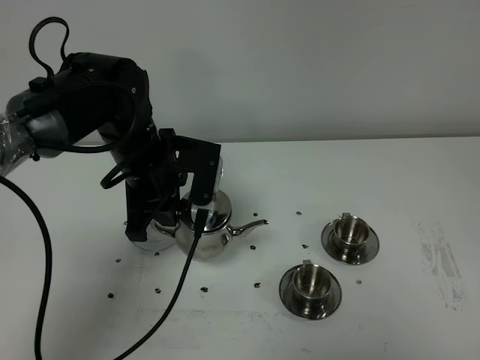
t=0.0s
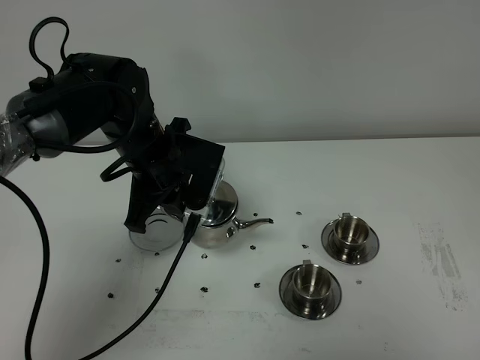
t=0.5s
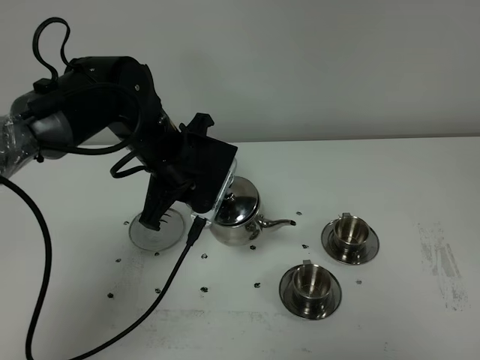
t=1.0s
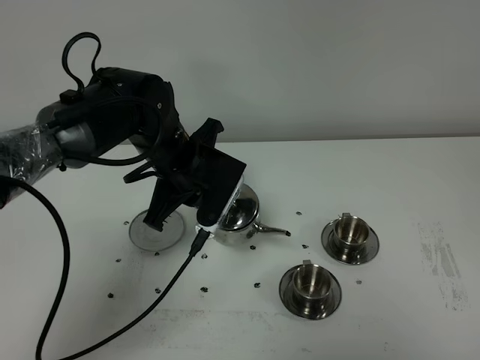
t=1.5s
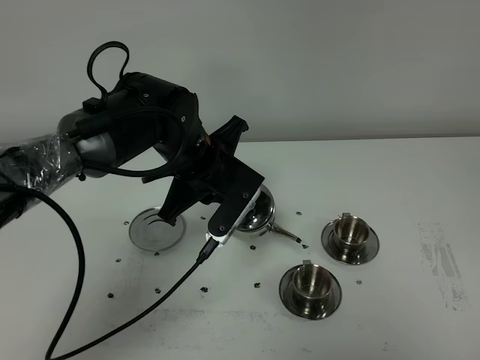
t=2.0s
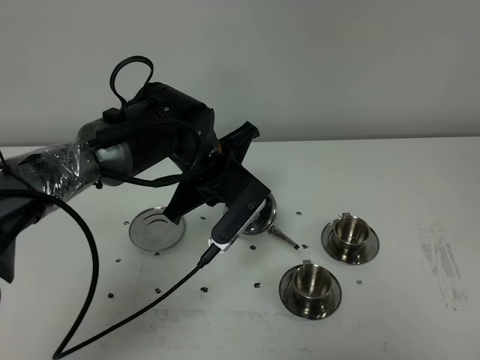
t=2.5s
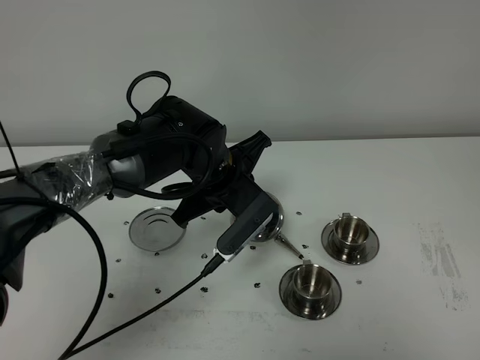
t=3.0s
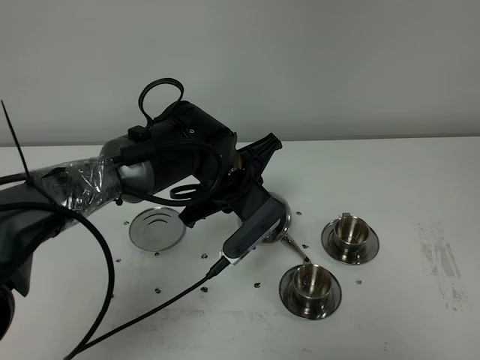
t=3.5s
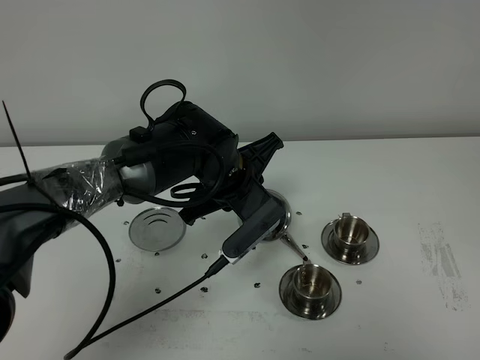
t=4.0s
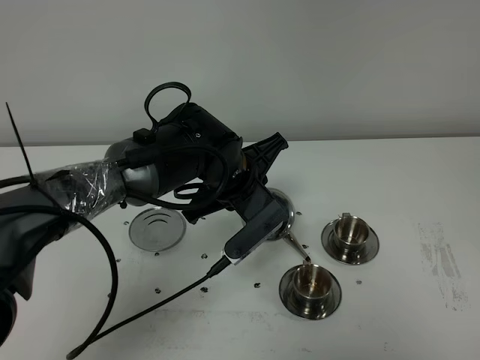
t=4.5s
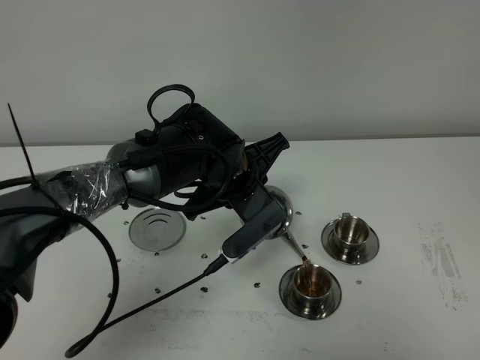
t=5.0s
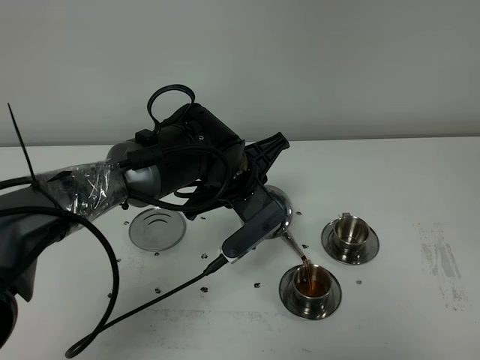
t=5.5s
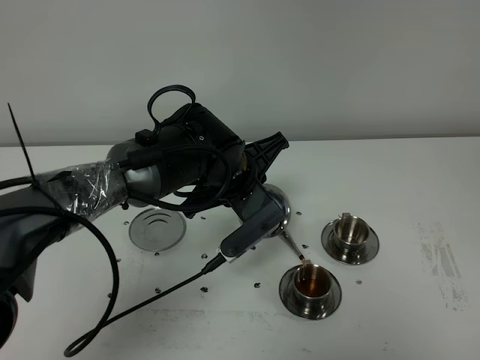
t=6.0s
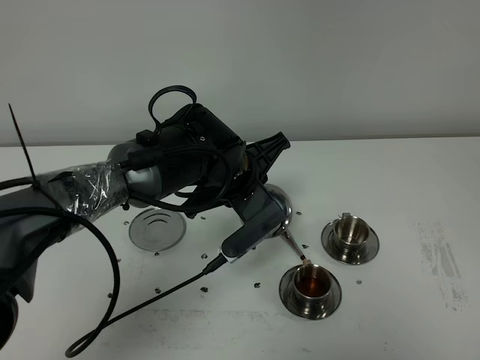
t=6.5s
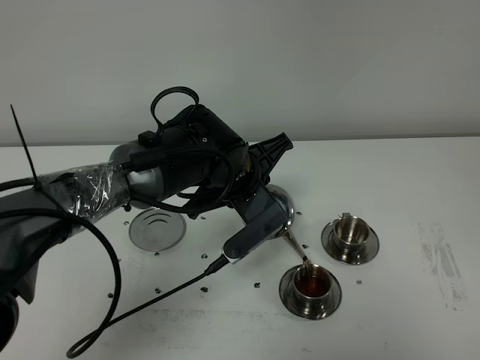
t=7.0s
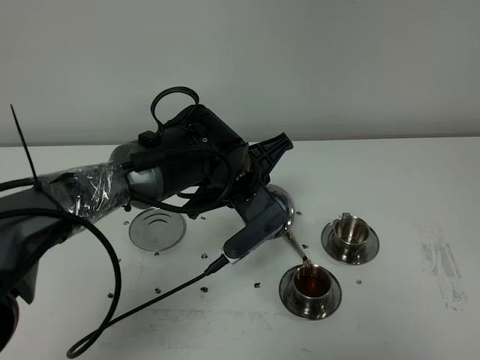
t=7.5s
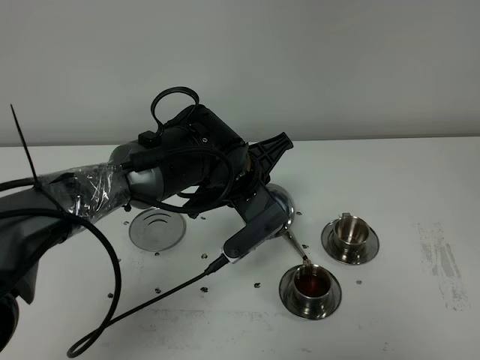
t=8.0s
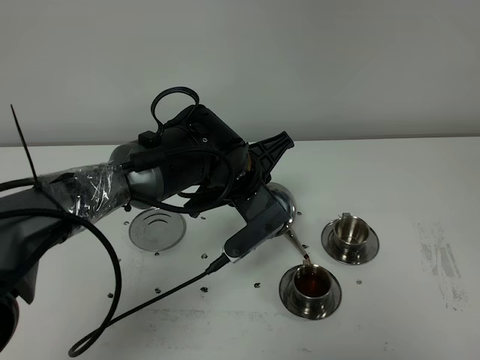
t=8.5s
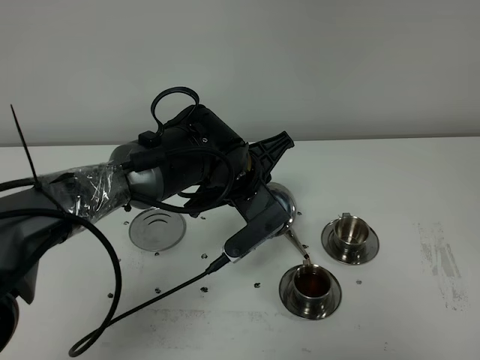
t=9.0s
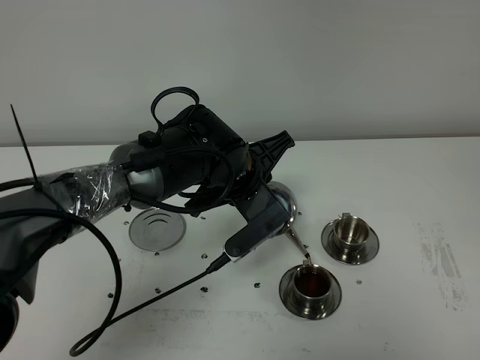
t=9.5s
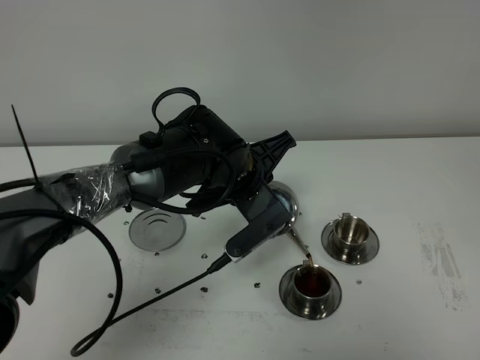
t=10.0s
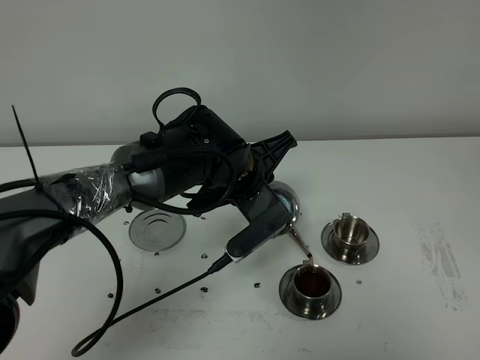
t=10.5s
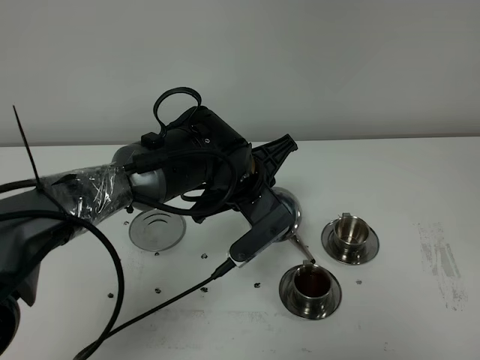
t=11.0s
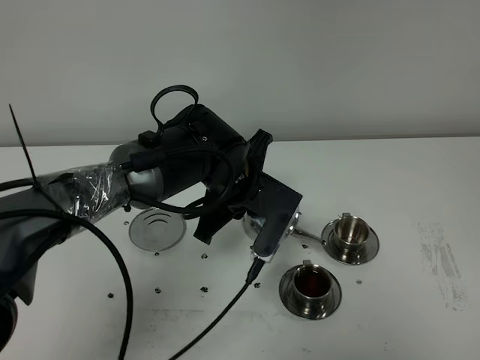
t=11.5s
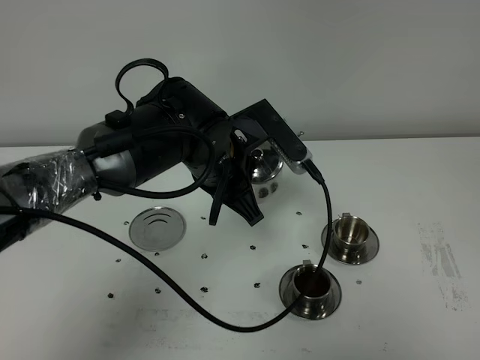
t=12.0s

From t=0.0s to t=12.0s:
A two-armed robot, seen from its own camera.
Task of the whole recording: grasp the stainless steel teapot and pour the tea into the two stainless steel teacups one by one, put the stainless steel teapot back in its original place.
Step, from t=0.0s to t=11.0s: Pour tea into the teacup with the left gripper.
From t=0.0s to t=2.0s: The left gripper shifts about 5 cm to the right.
From t=2.0s to t=4.0s: The grippers make only small movements.
From t=4.0s to t=6.0s: The grippers move only a little.
From t=6.0s to t=10.0s: Both grippers stay about where they are.

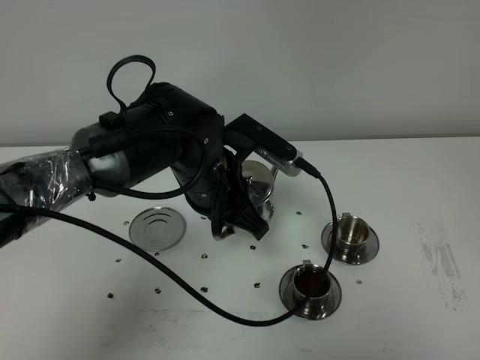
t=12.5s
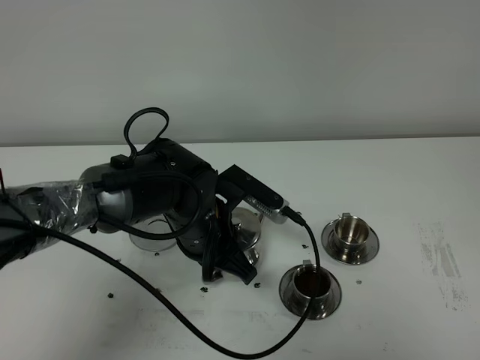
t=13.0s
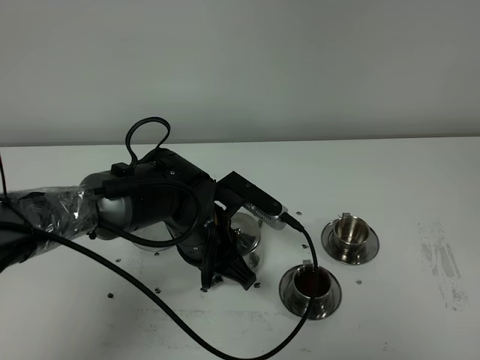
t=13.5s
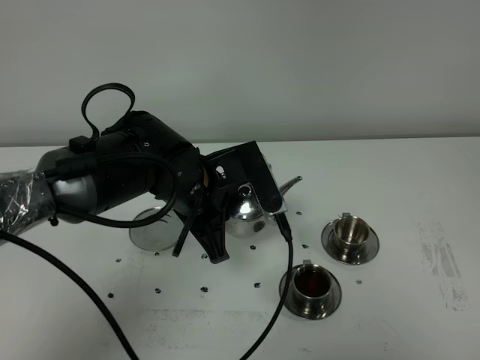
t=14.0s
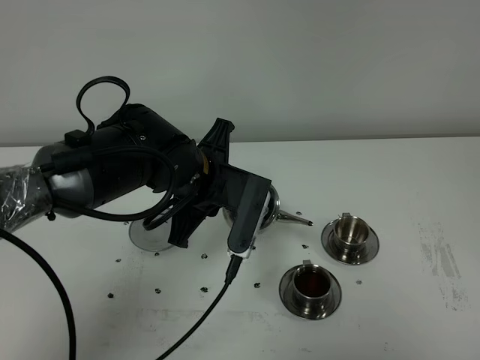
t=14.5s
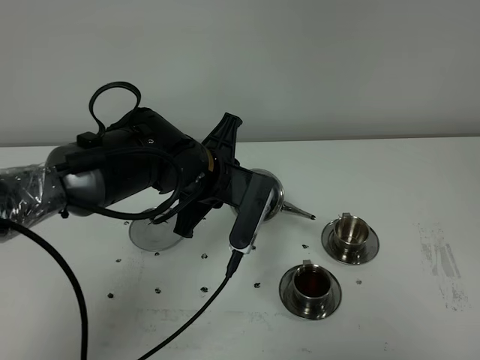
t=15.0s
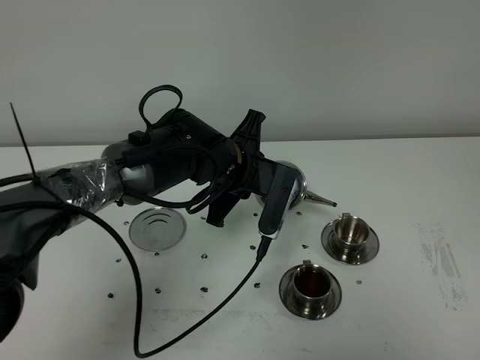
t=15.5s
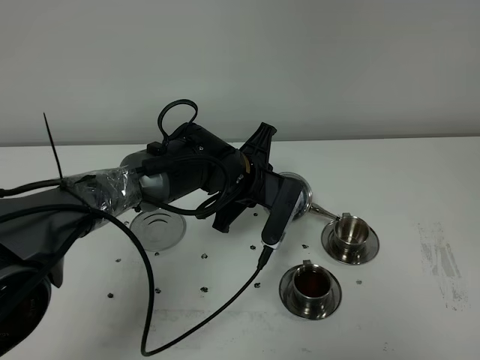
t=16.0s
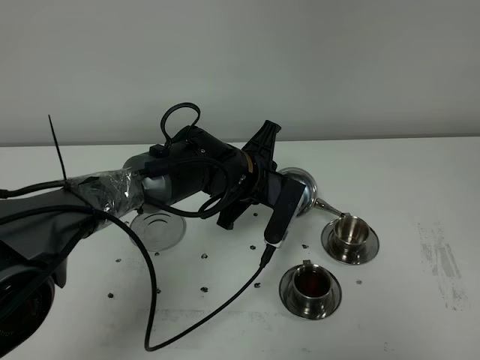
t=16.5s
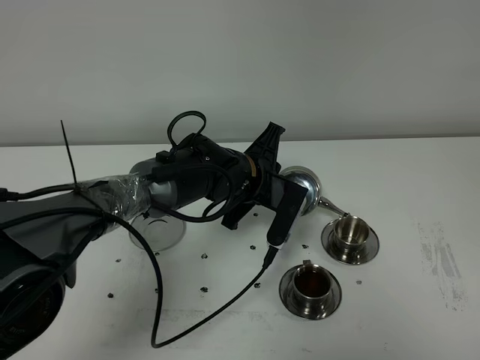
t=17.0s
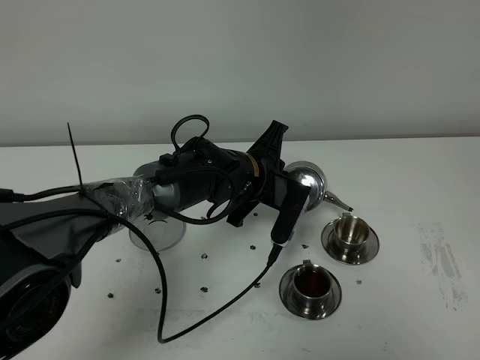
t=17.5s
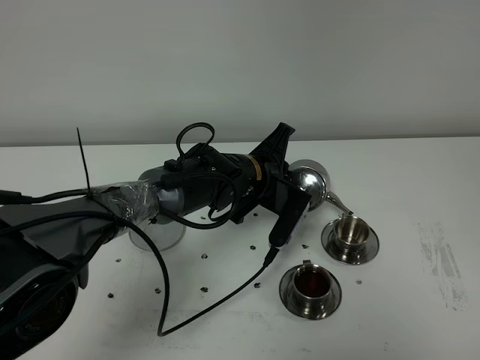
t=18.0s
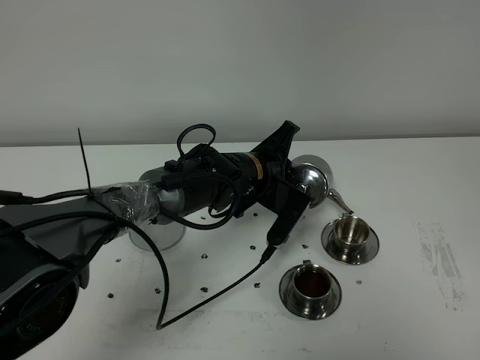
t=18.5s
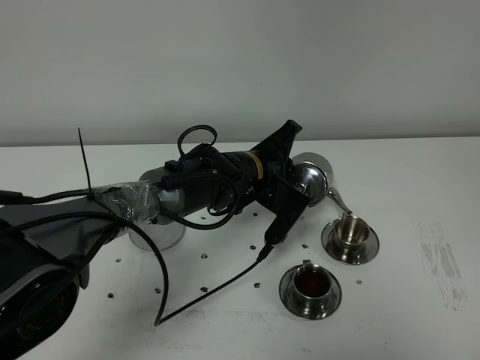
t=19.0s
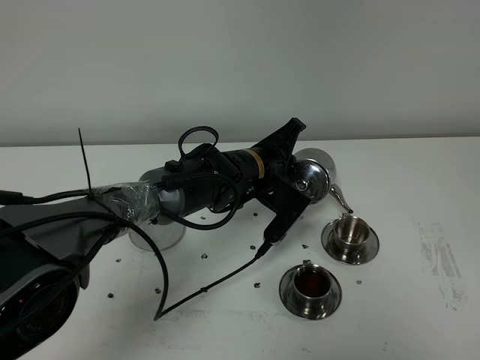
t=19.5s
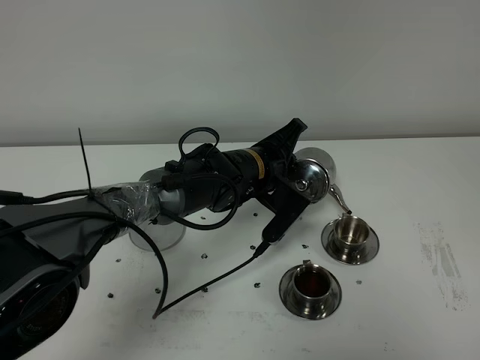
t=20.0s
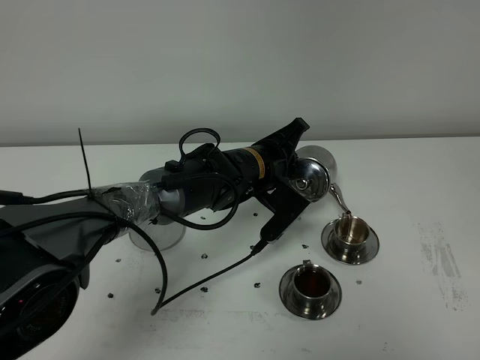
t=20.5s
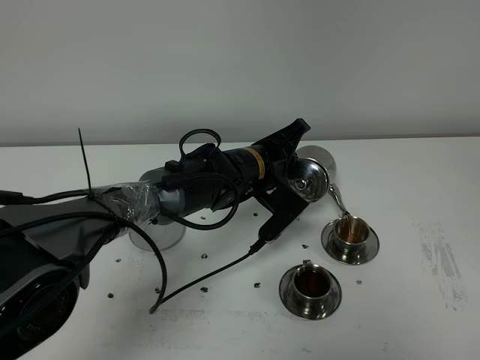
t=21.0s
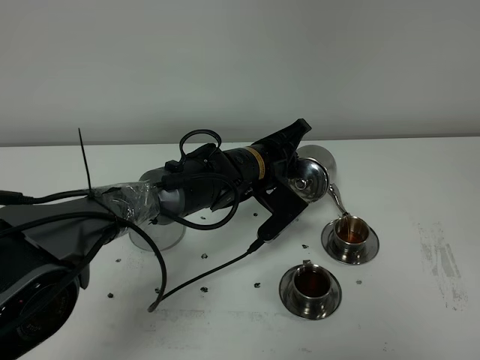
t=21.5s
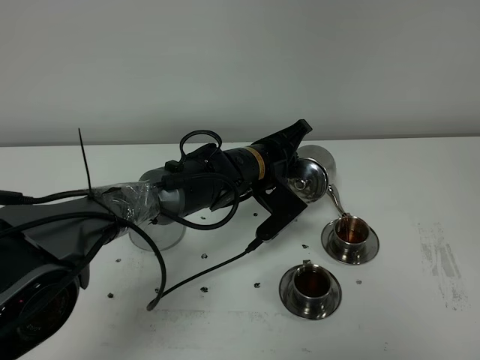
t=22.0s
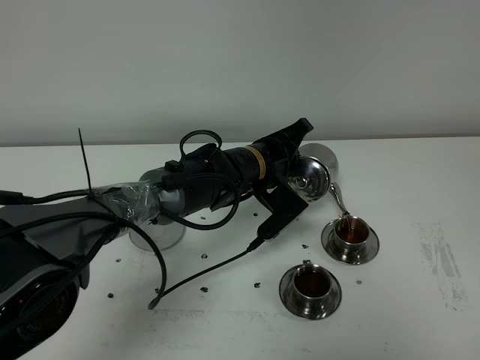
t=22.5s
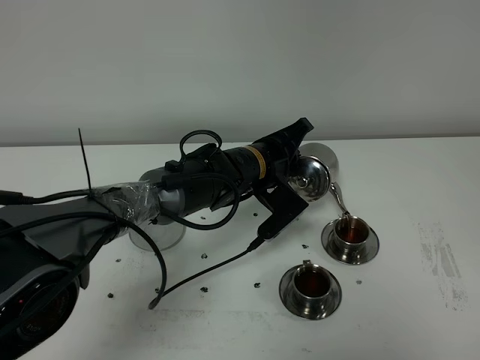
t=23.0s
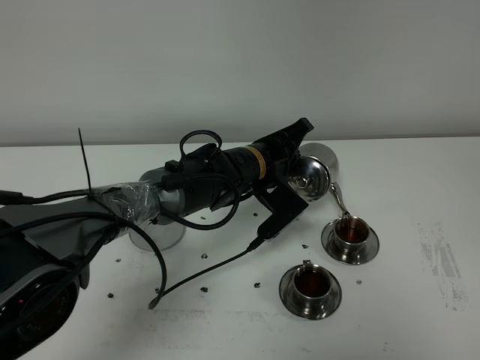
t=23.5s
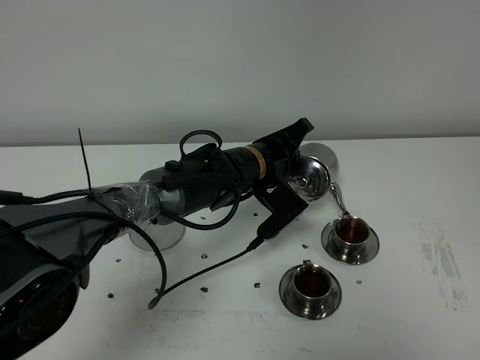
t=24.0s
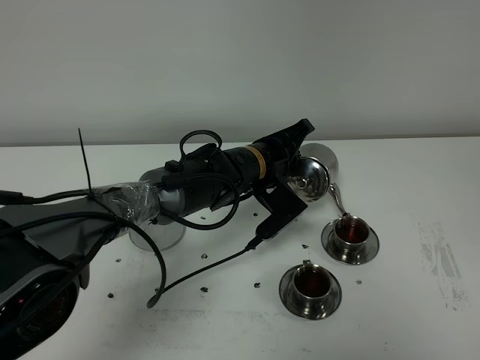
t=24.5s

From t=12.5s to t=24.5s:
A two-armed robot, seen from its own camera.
Task of the whole recording: grasp the stainless steel teapot and pour the tea into the two stainless steel teacups one by one, put the stainless steel teapot back in its original place.
From t=14.5s to t=16.5s: The left gripper heads forward and downward, covering some 10 cm.
From t=16.5s to t=18.5s: The grippers move only a little.
From t=18.5s to t=20.5s: The grippers make only small movements.
From t=20.5s to t=22.5s: Both grippers stay put.
From t=22.5s to t=24.5s: Neither gripper changes place.

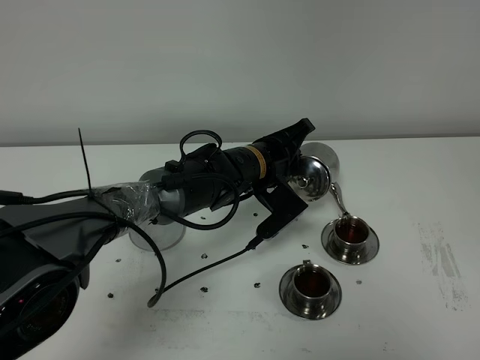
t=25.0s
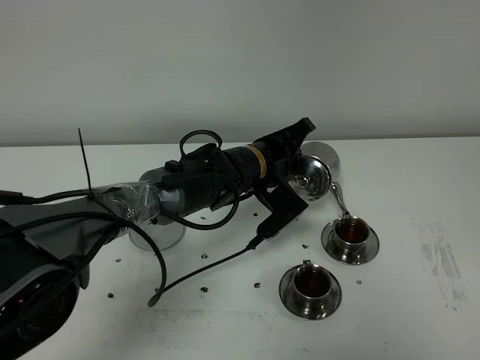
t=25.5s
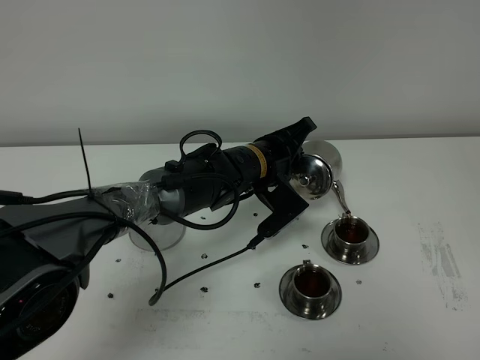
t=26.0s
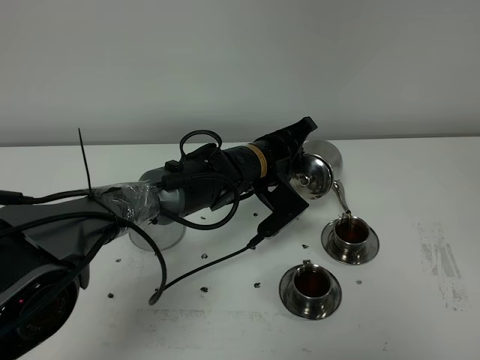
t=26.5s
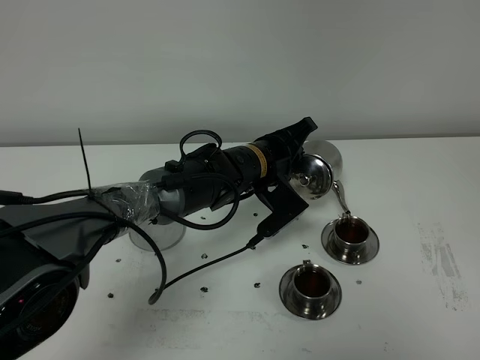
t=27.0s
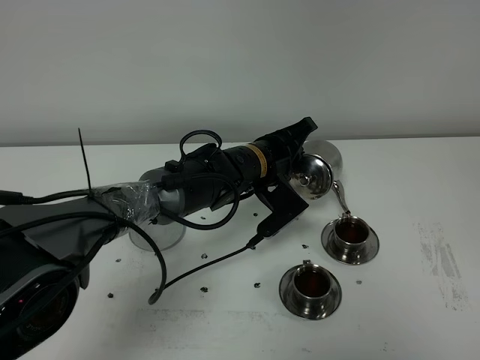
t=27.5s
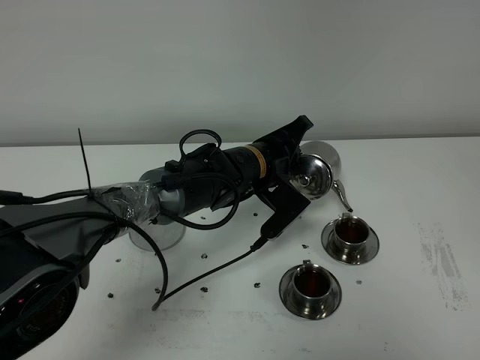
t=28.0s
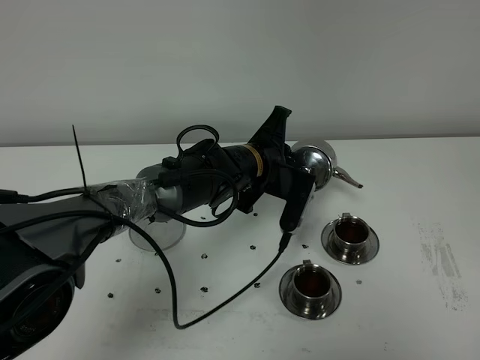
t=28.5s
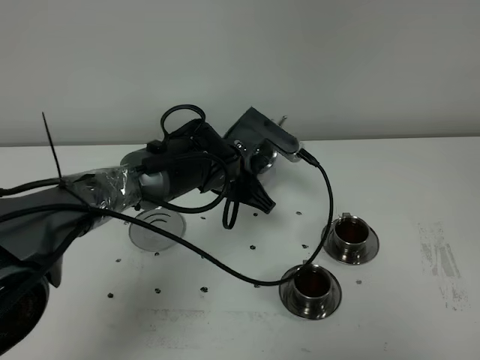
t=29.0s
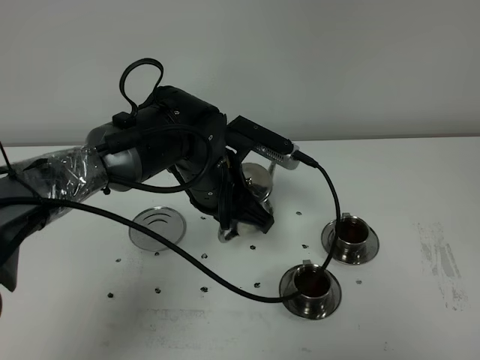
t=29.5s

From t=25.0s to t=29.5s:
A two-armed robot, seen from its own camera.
Task of the whole recording: grasp the stainless steel teapot and pour the tea into the two stainless steel teacups one by one, put the stainless steel teapot back in its original place.
Step, from t=25.0s to t=28.0s: Pour tea into the teacup with the left gripper.
From t=25.0s to t=27.0s: Both grippers stay about where they are.
From t=27.0s to t=29.5s: The left gripper travels backward and to the left by roughly 10 cm.
